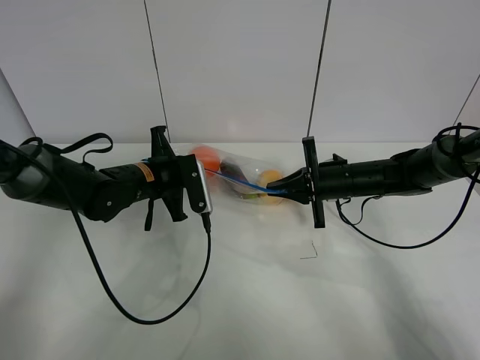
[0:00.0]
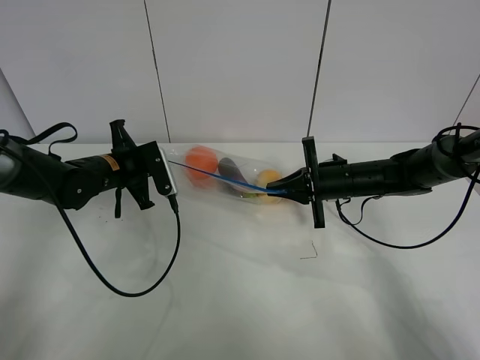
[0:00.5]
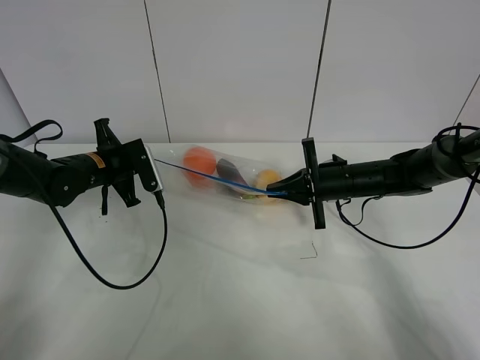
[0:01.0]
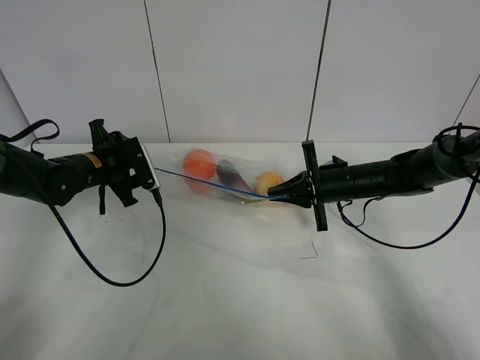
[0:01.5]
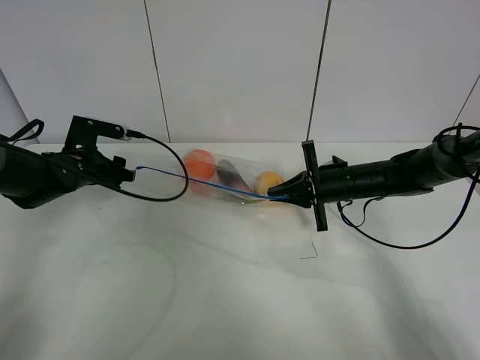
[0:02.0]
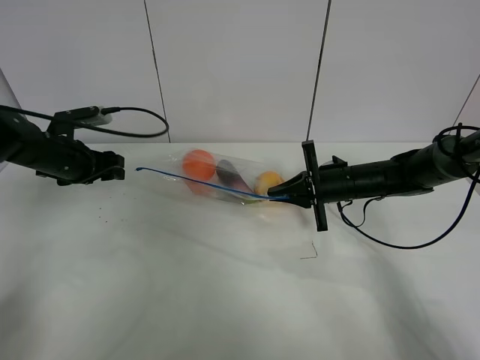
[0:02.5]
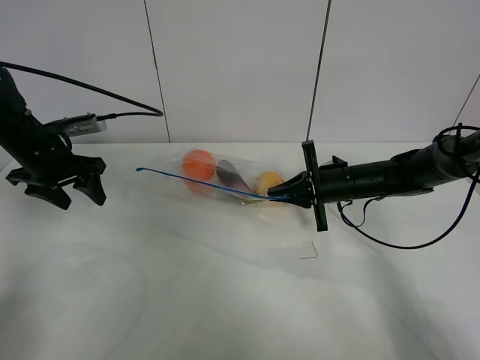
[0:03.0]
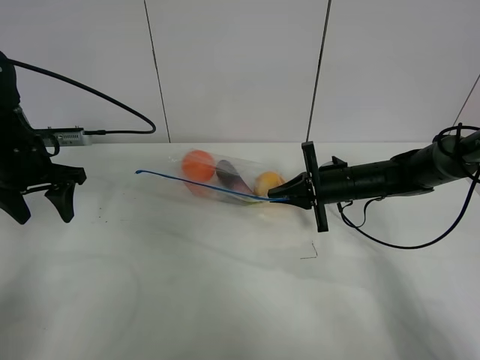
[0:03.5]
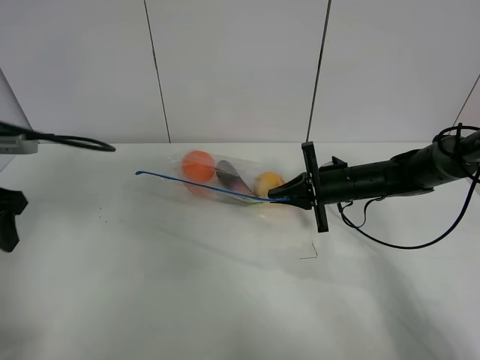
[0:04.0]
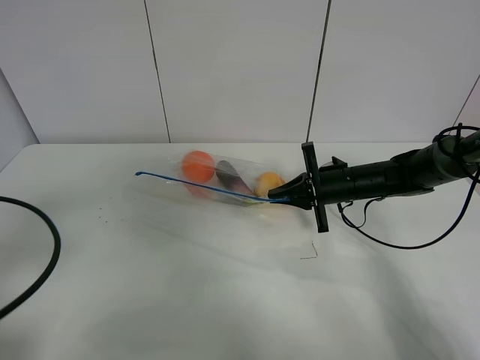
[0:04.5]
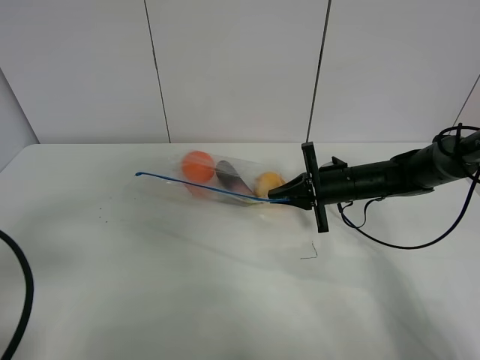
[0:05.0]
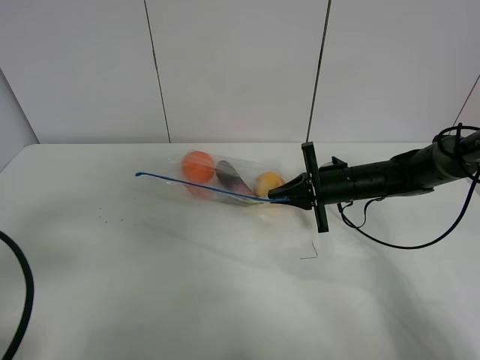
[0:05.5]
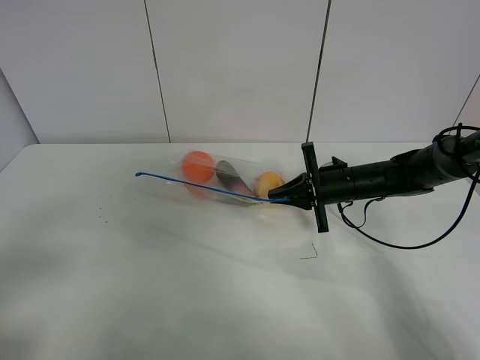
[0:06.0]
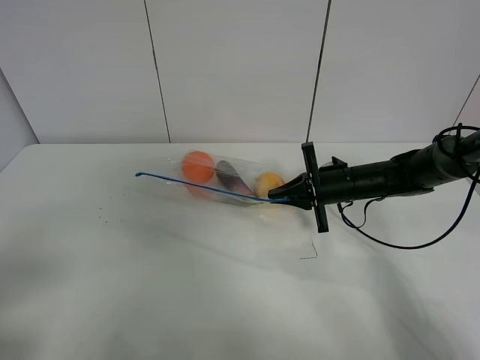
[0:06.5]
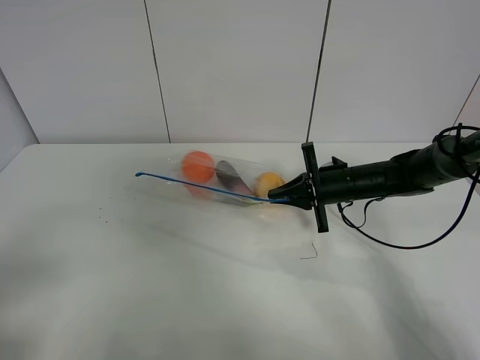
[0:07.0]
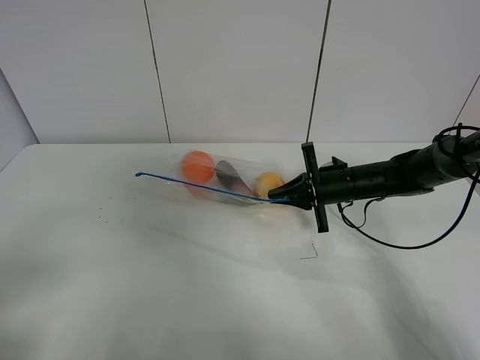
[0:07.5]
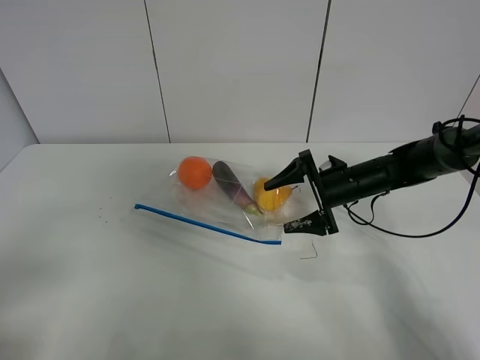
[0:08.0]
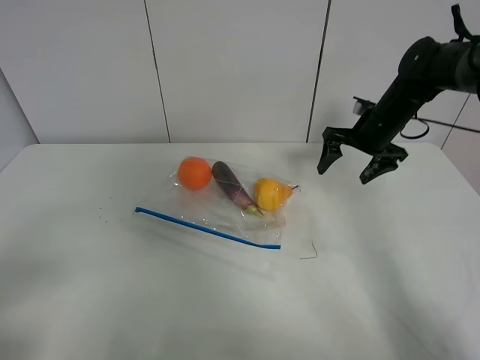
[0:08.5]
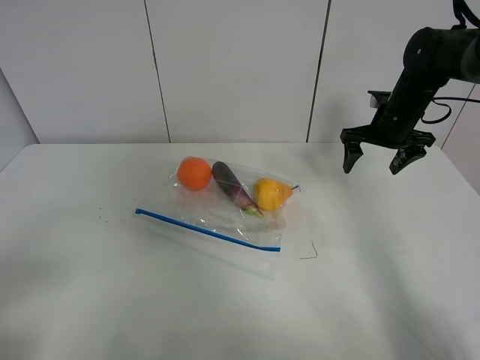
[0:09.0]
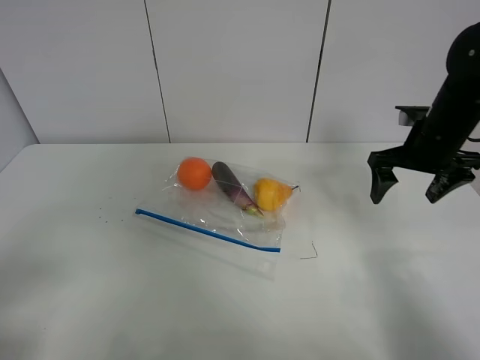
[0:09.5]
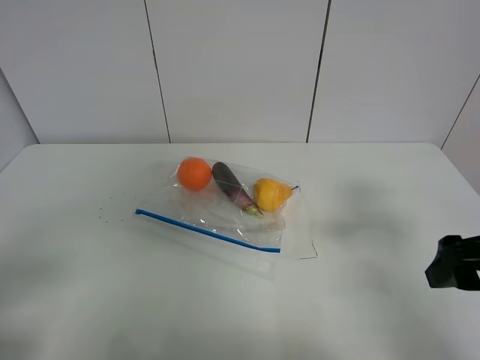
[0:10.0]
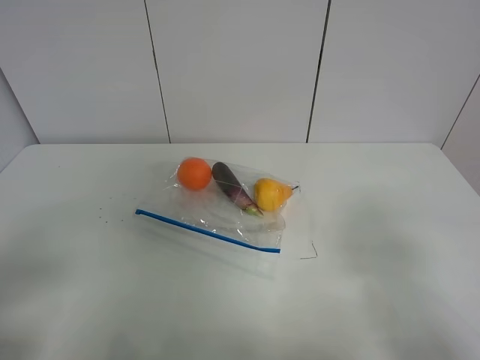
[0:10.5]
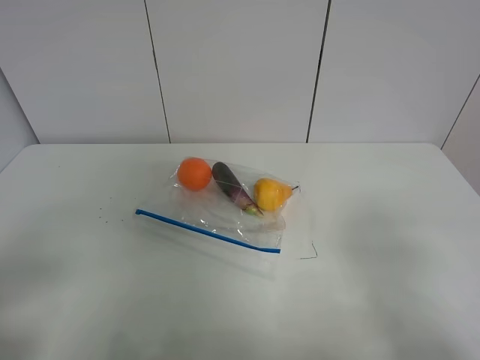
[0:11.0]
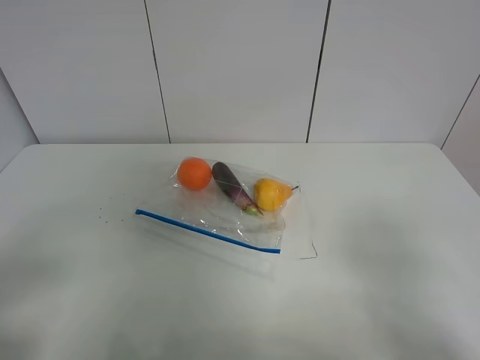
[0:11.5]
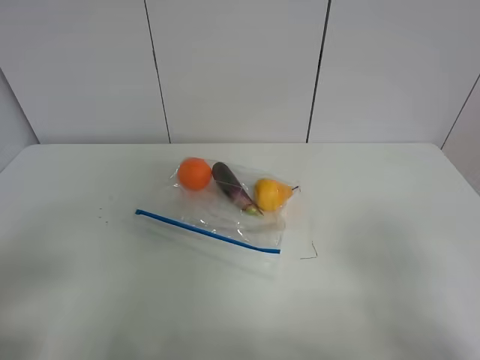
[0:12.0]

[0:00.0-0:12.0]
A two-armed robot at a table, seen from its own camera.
0:00.0 to 0:02.0: The left gripper travels to the left by about 10 cm, and opens its fingers.
0:02.0 to 0:04.0: The left gripper goes approximately 20 cm backward and upward.
0:04.0 to 0:06.0: The left gripper goes approximately 20 cm backward.
0:06.0 to 0:08.0: The right gripper opens its fingers.
0:08.0 to 0:10.0: The right gripper moves backward and upward, roughly 25 cm.
0:10.0 to 0:12.0: The right gripper is displaced backward by approximately 15 cm.

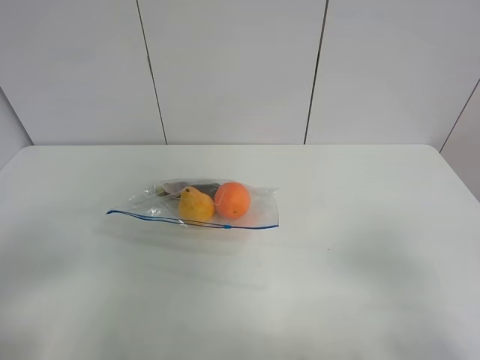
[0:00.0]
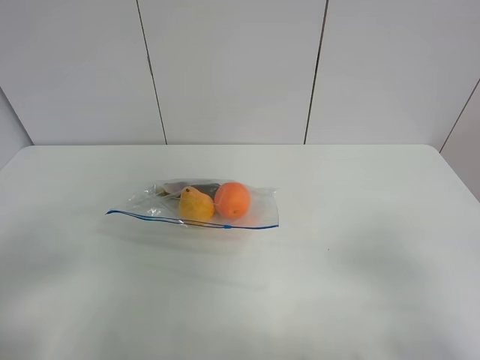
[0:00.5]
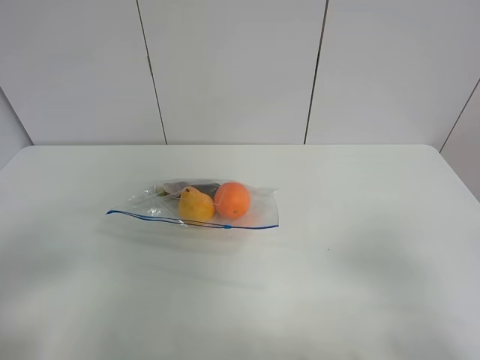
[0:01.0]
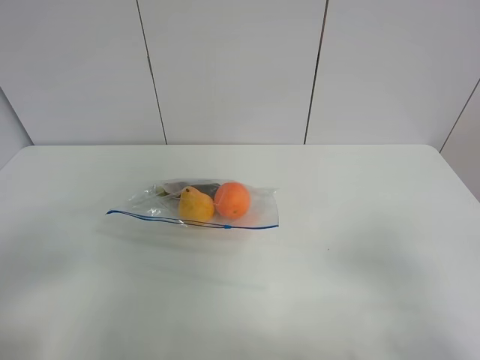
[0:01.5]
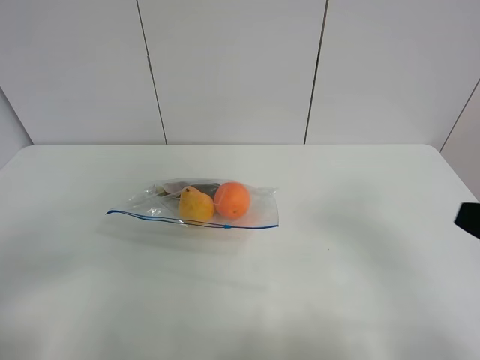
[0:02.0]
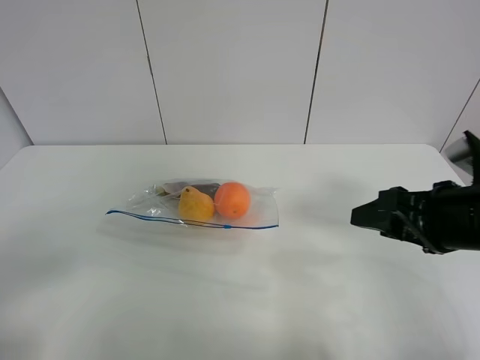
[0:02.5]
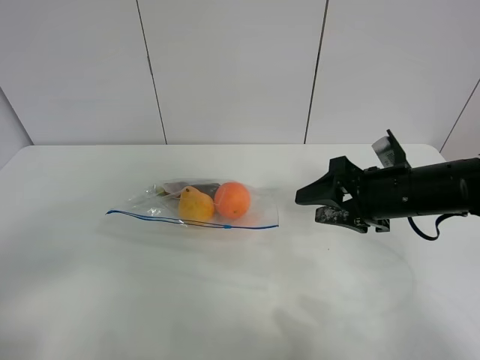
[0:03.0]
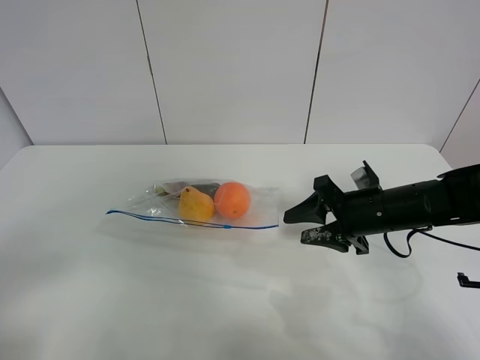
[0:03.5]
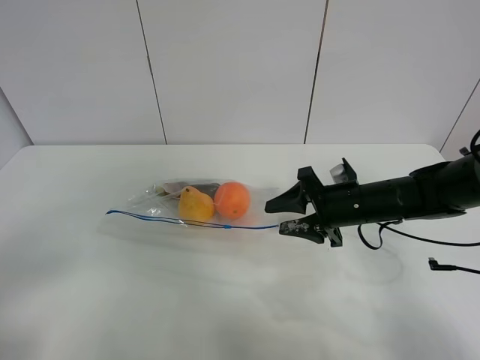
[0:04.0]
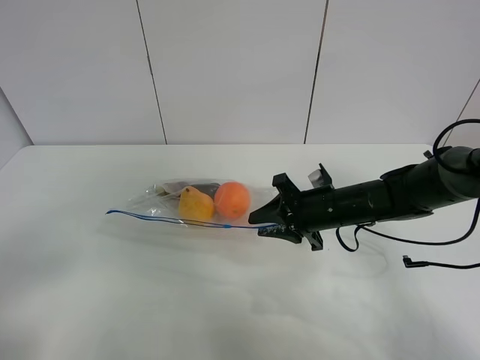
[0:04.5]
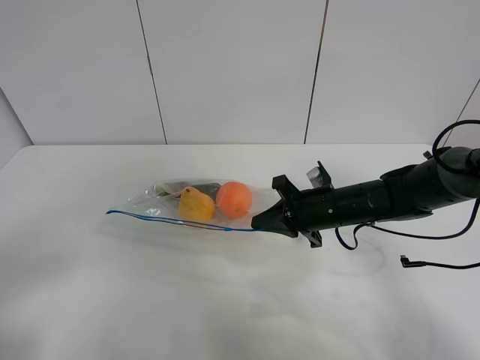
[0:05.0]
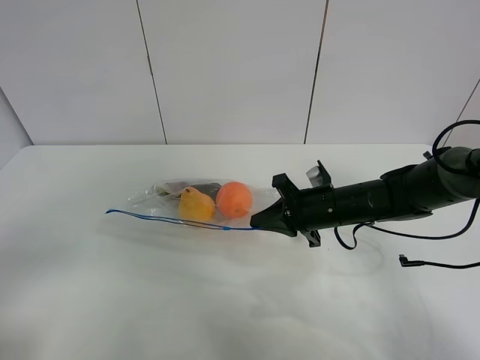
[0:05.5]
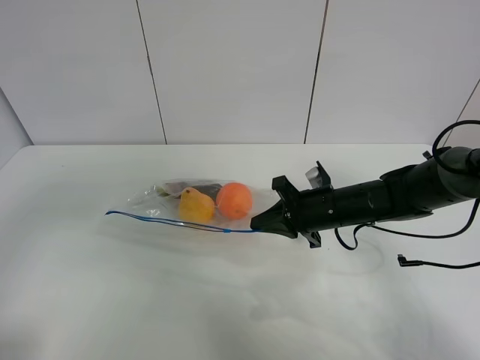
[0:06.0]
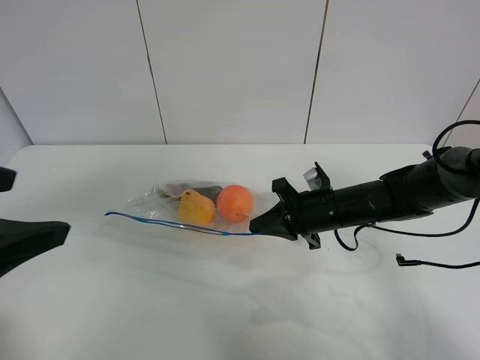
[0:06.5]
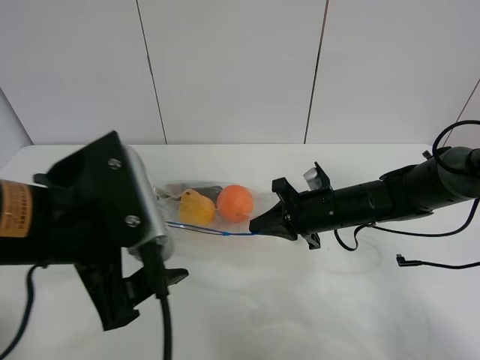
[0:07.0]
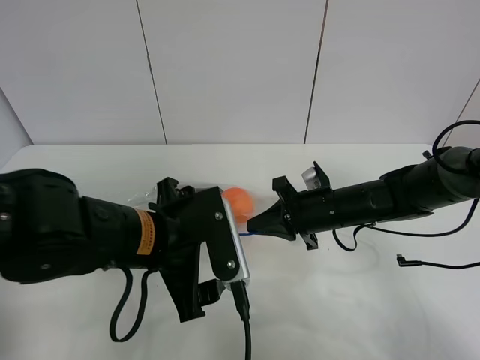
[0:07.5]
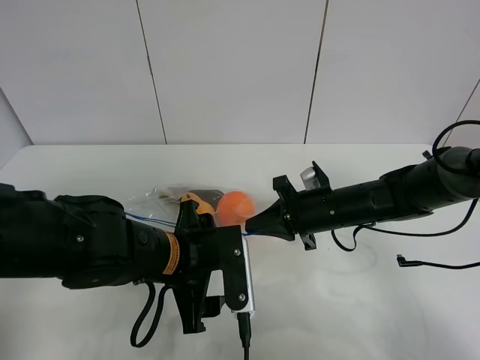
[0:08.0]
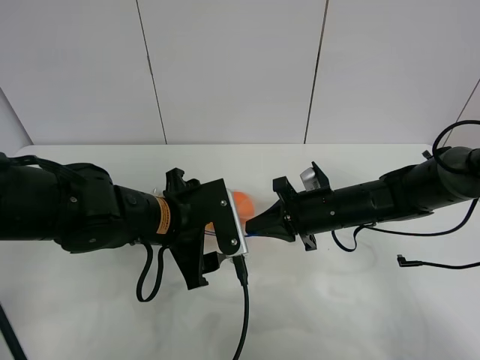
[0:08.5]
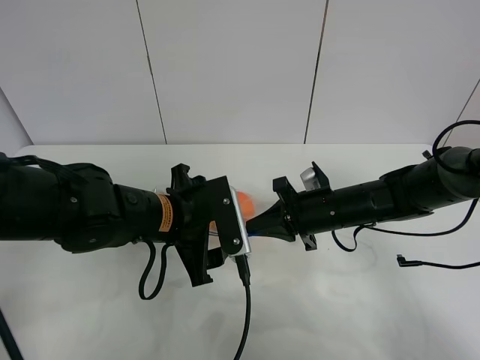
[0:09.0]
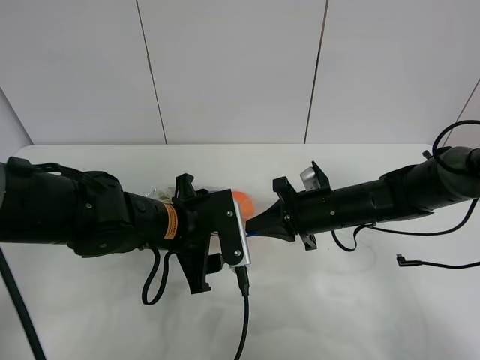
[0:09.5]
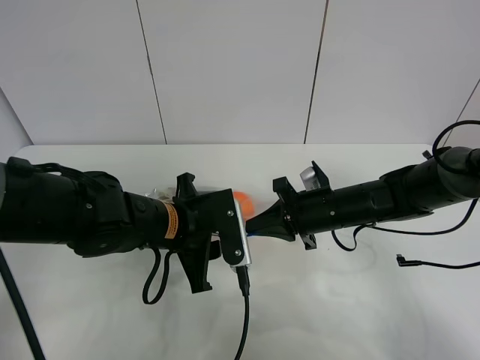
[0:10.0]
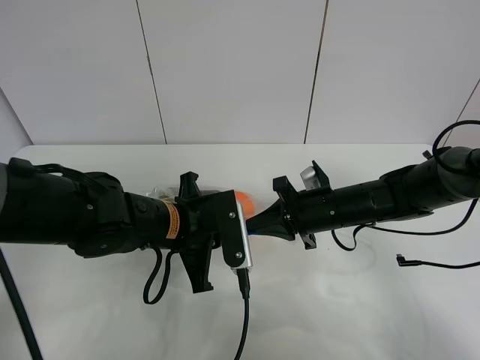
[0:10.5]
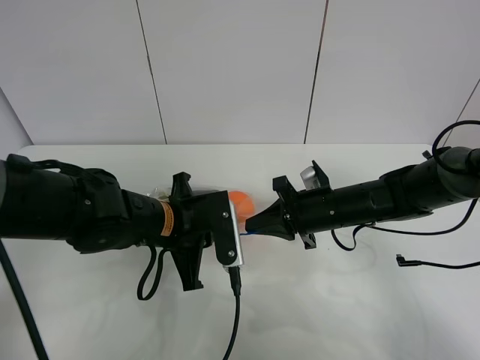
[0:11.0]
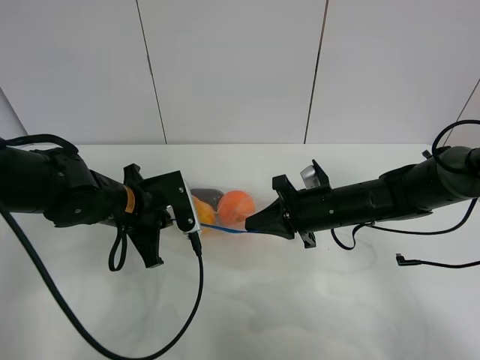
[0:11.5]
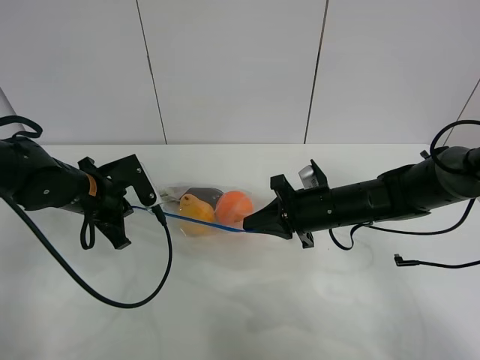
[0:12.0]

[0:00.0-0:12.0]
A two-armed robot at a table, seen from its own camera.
Step, 0:00.0 to 0:04.5: Grasp the fruit bag with right gripper.
0:02.0 to 0:04.0: The right gripper shifts approximately 30 cm forward and downward.
0:04.0 to 0:06.0: The right gripper closes up, while the left gripper is displaced upward and forward by roughly 10 cm.
0:06.0 to 0:08.0: The left gripper goes approximately 30 cm to the right, downward and forward.
0:08.0 to 0:10.0: The left gripper closes.
0:10.0 to 0:12.0: The left gripper travels to the left and forward by some 15 cm, and closes up.

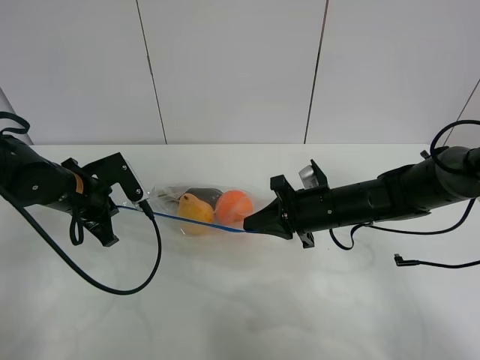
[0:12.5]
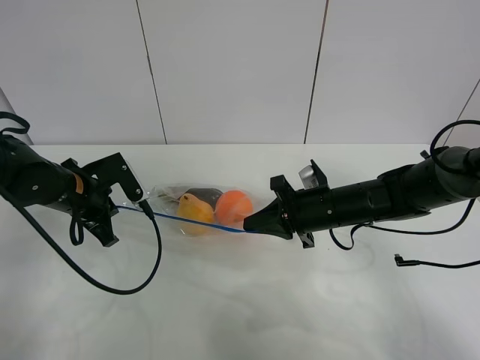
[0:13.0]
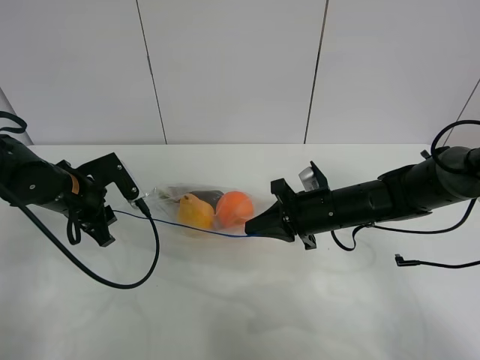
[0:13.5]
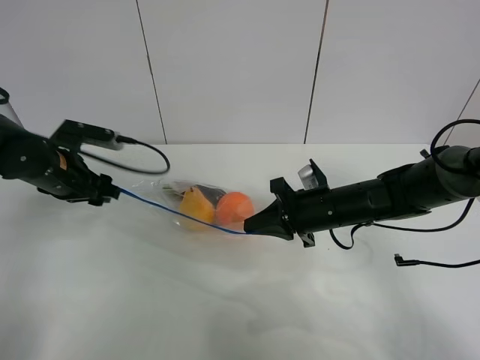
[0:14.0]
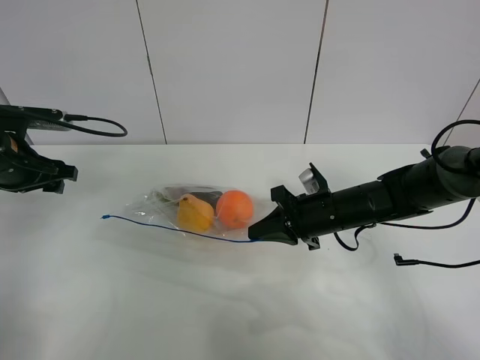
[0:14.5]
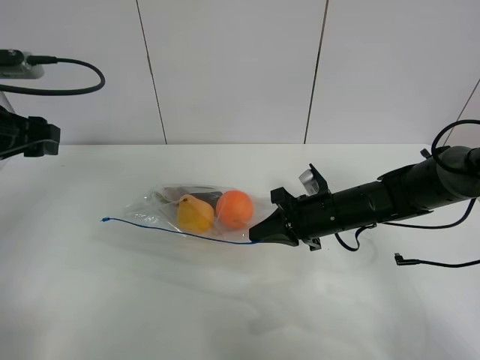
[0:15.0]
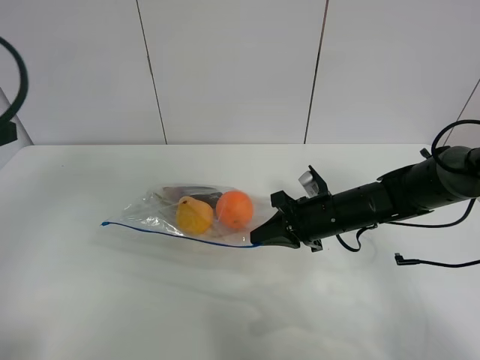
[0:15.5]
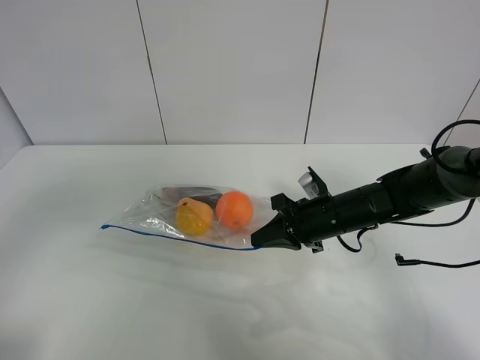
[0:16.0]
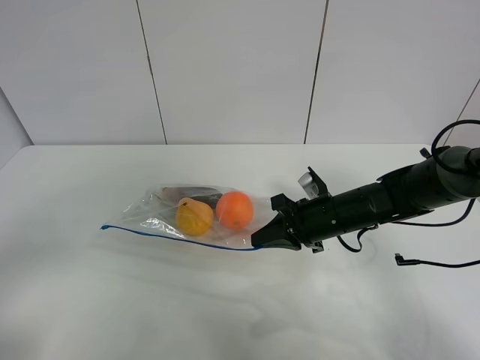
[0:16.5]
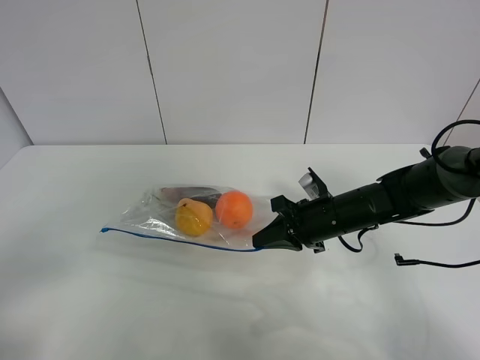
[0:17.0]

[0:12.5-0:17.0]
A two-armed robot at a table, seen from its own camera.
0:12.5 to 0:14.5: The left gripper travels to the left and upward by some 10 cm, and opens up.
0:14.5 to 0:17.0: The left gripper heads backward, covering approximately 30 cm.
